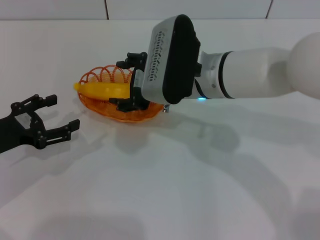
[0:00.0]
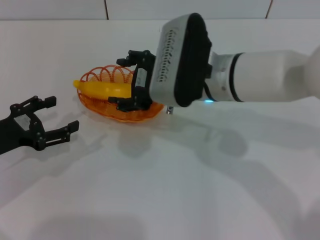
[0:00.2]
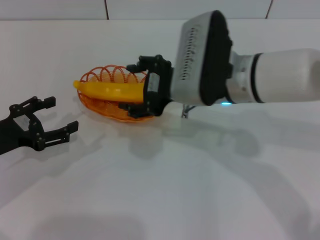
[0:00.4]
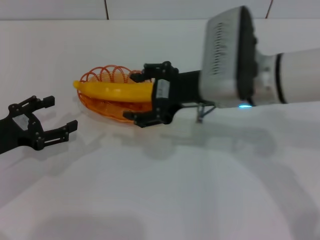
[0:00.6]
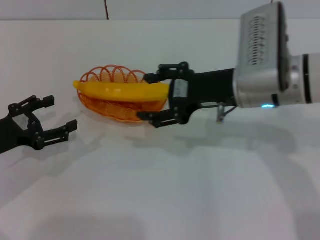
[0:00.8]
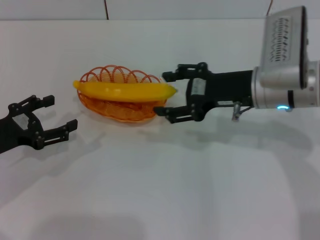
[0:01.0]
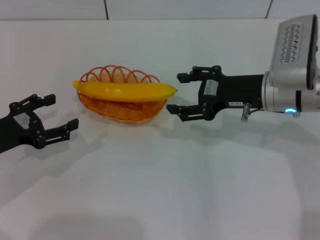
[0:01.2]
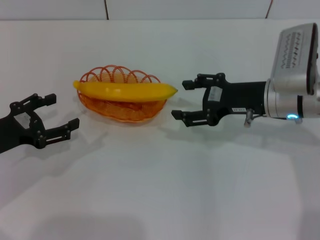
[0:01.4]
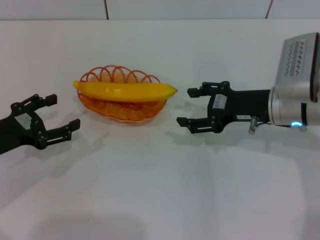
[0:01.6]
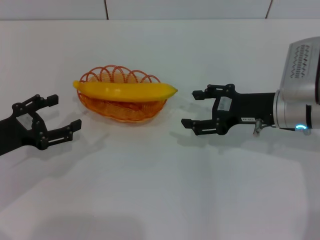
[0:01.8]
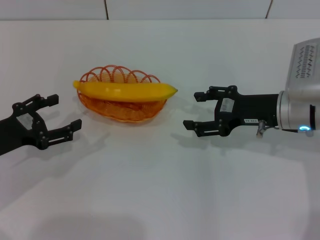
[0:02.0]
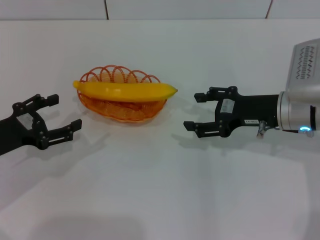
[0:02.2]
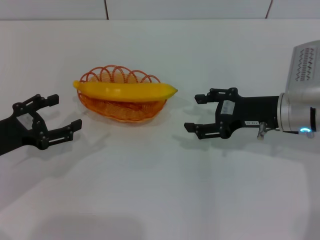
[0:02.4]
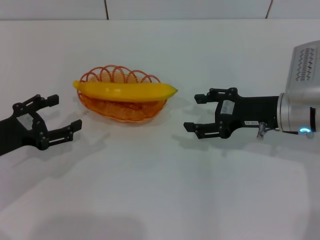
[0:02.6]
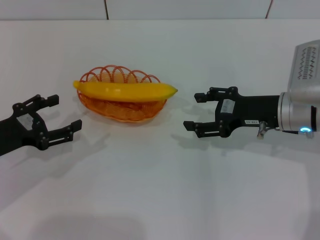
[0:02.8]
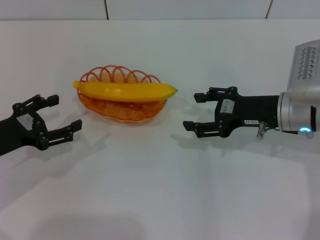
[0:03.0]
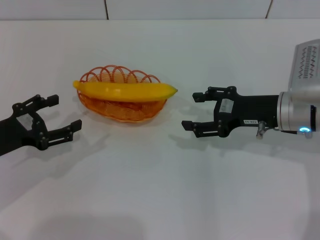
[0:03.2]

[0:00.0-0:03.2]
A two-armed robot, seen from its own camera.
0:00.0 to 0:01.6: The right gripper goes roughly 15 cm to the right, and opens up.
0:01.6 to 0:03.2: The grippers stay close to where they were, moving slightly.
